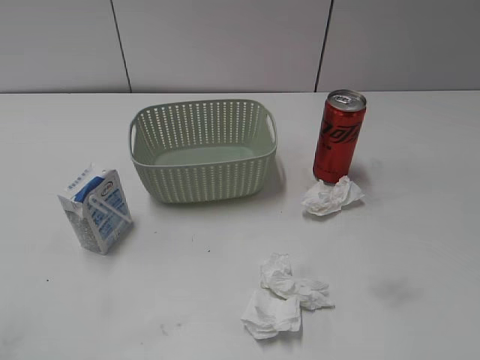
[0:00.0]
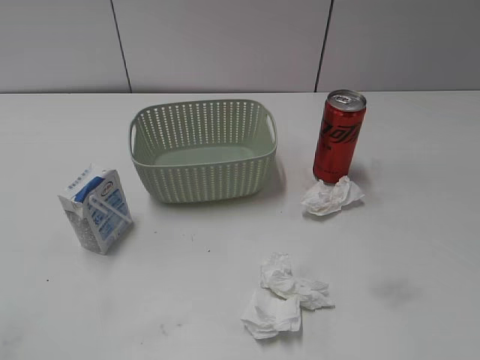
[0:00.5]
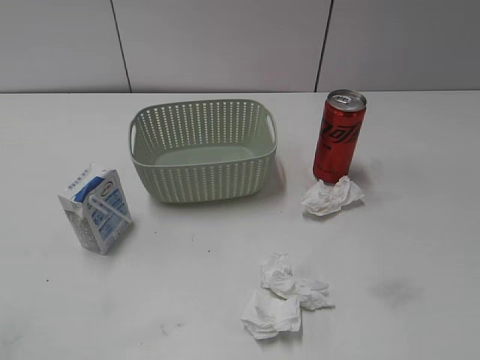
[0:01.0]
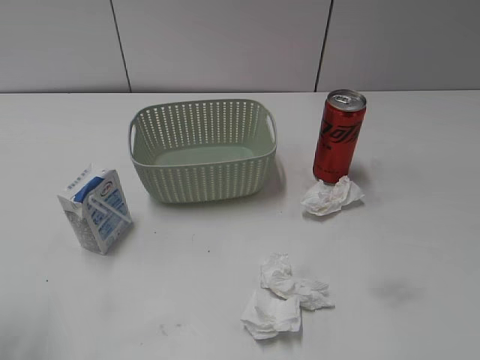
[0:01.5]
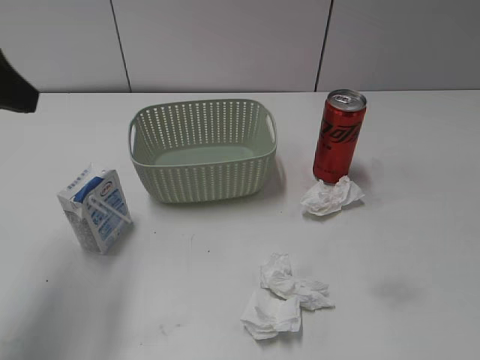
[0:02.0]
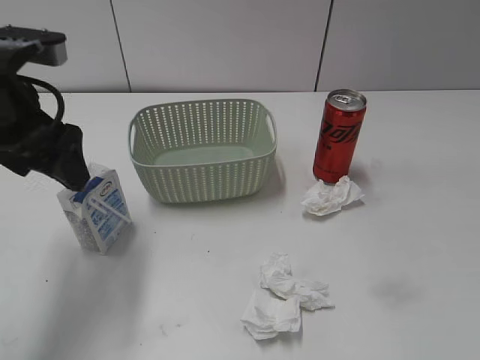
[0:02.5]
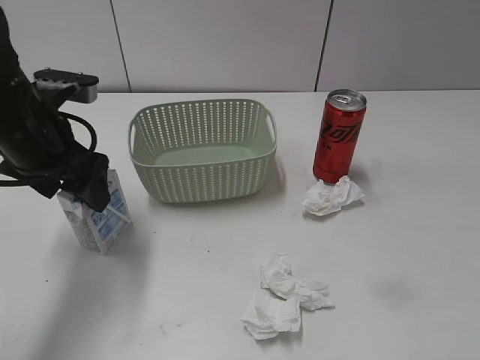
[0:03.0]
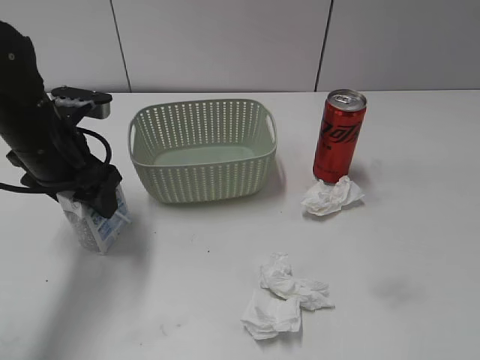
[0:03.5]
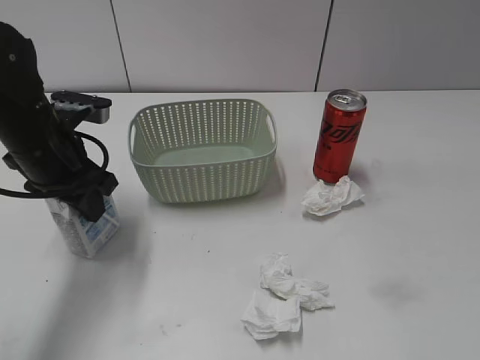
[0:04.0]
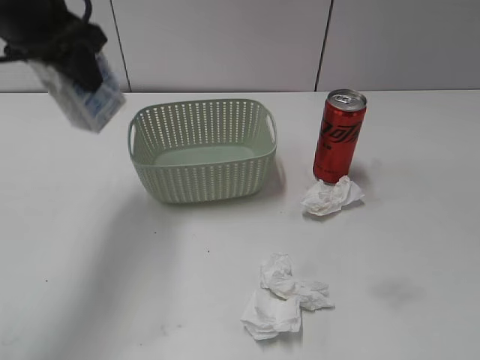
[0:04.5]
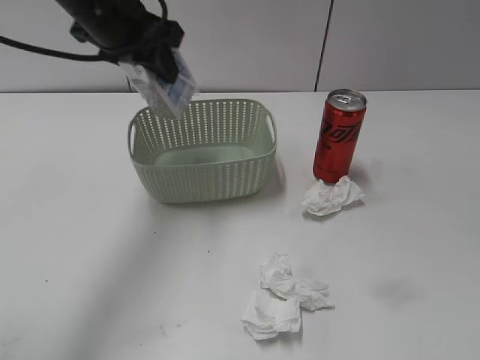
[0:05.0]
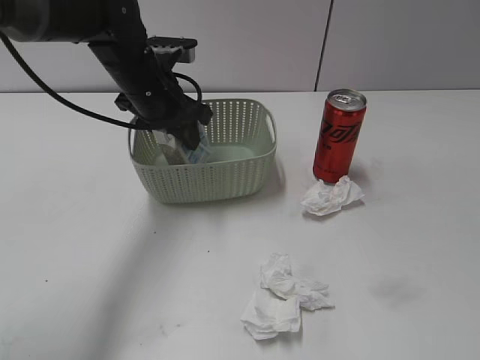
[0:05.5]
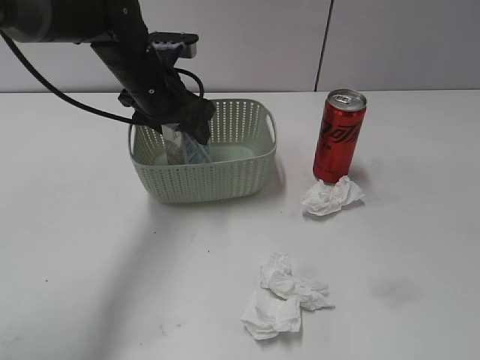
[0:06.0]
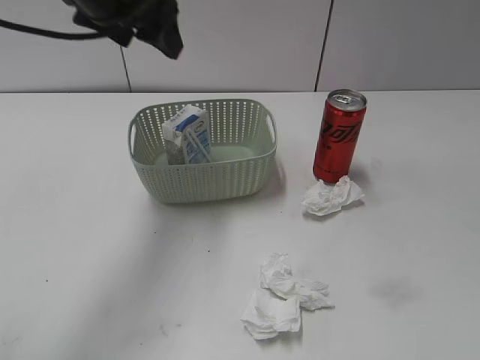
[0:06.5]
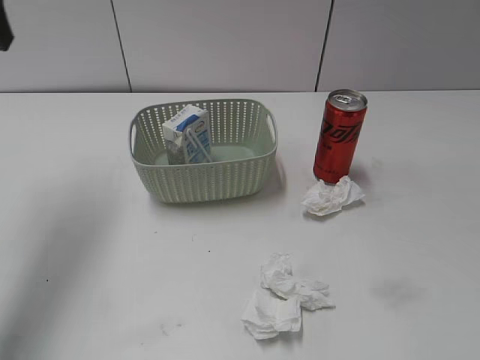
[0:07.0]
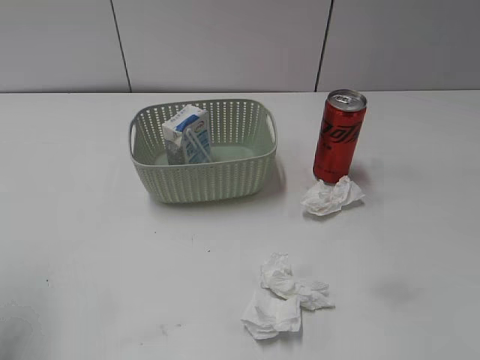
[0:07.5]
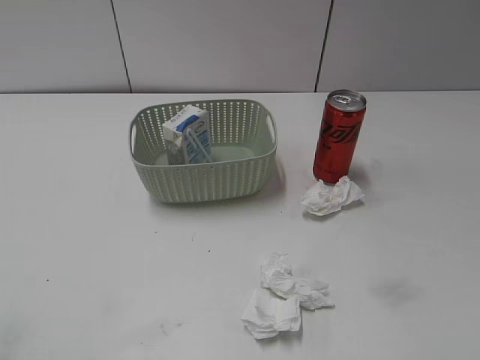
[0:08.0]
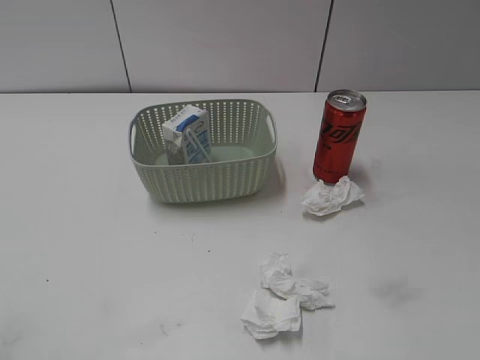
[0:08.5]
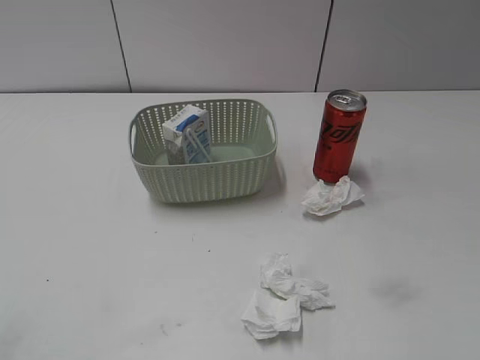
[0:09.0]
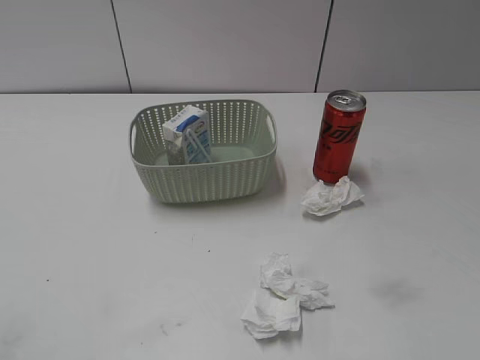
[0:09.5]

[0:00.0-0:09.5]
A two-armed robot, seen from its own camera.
Step, 0:02.0 to 0:03.5: Grasp the milk with left gripper.
Step, 0:04.0 to 0:06.0: Place the milk in the basket with left gripper.
0:02.0 to 0:04.0: The left gripper travels downward and forward by approximately 15 cm, and closes.
0:04.0 to 0:05.5: The left gripper travels to the right and forward by some 15 cm, and moves approximately 15 cm upward and comes back.
0:05.5 to 0:07.5: The left gripper is displaced backward, to the left and upward by roughly 35 cm, and opens its fingers.

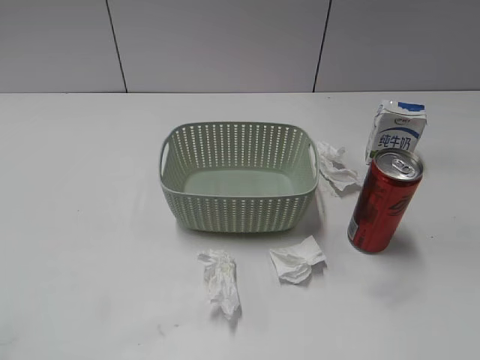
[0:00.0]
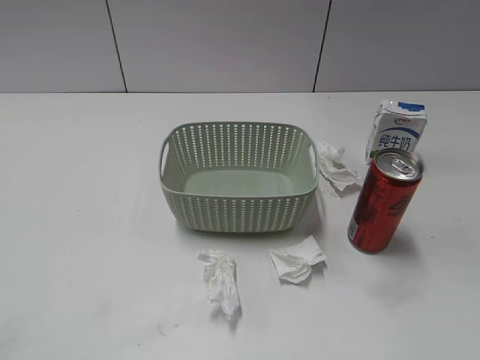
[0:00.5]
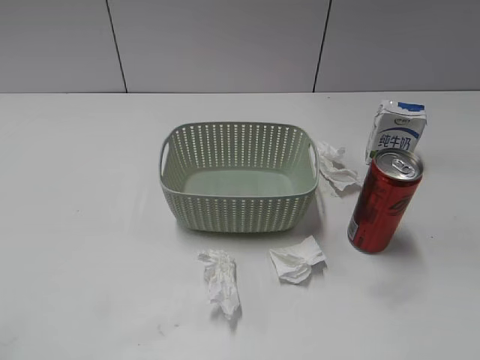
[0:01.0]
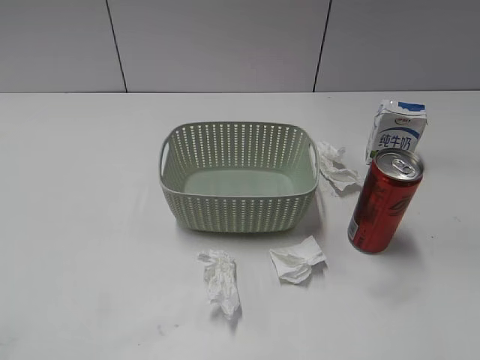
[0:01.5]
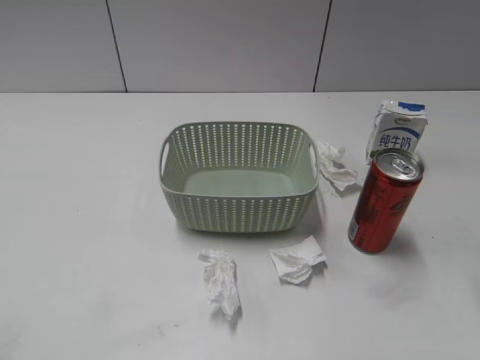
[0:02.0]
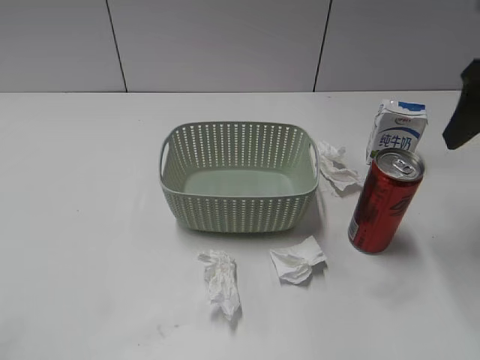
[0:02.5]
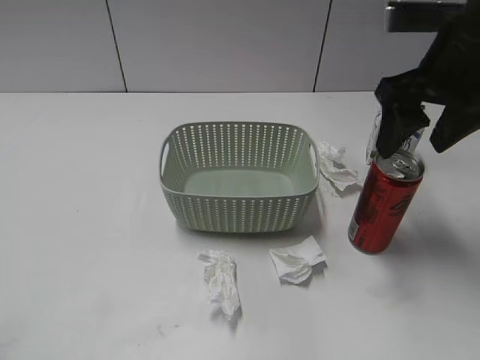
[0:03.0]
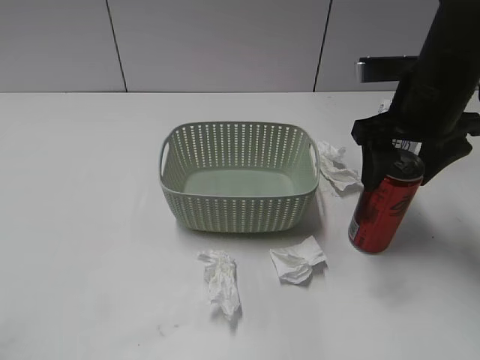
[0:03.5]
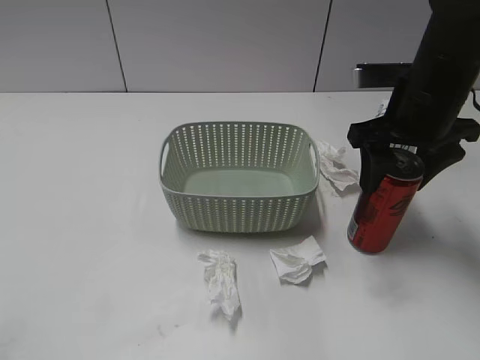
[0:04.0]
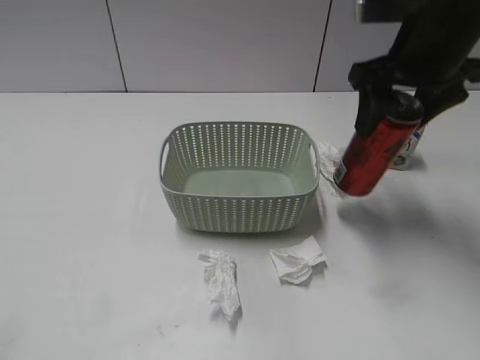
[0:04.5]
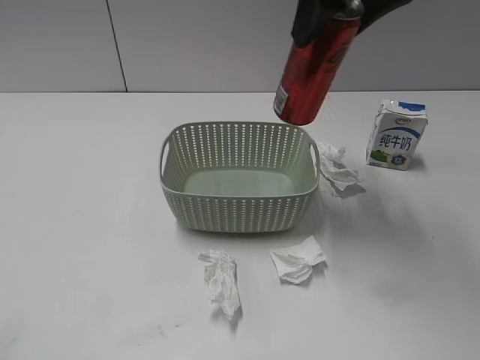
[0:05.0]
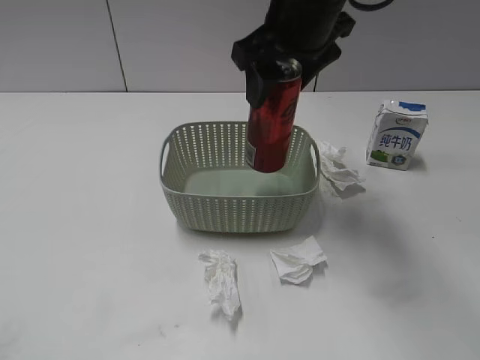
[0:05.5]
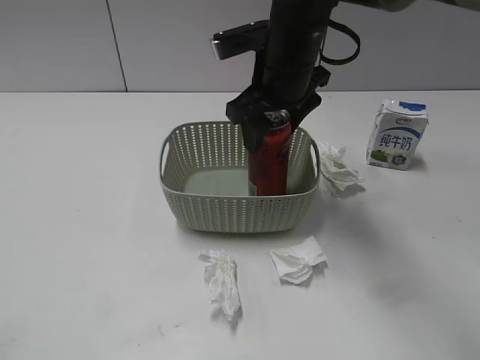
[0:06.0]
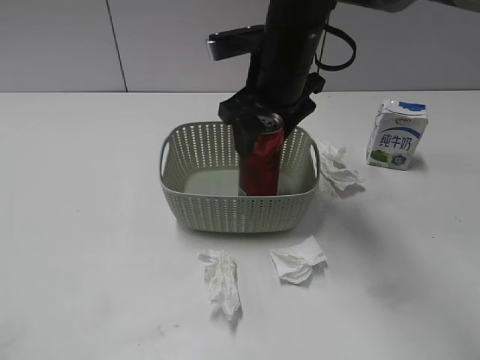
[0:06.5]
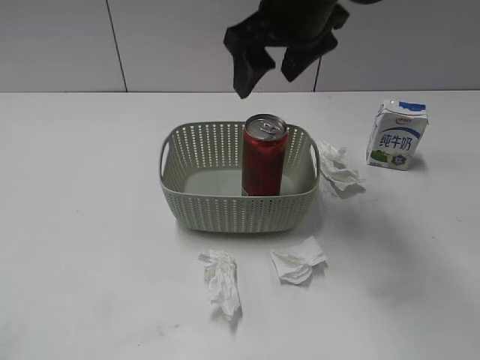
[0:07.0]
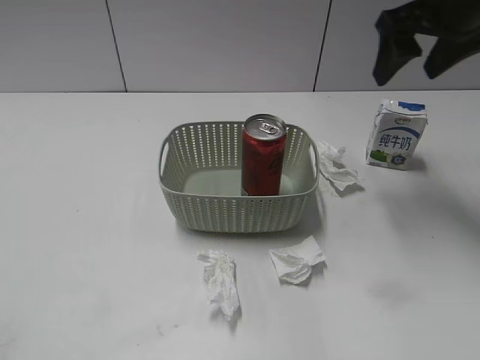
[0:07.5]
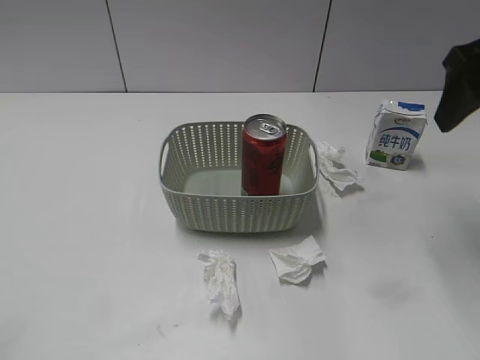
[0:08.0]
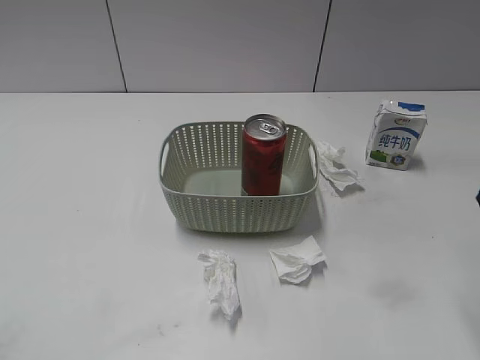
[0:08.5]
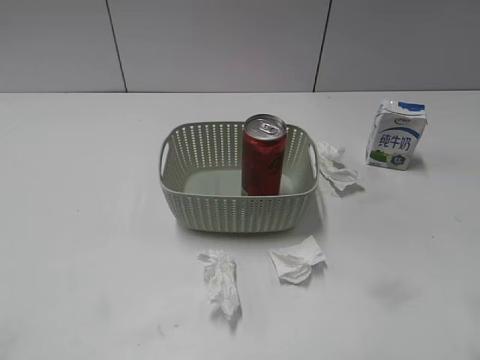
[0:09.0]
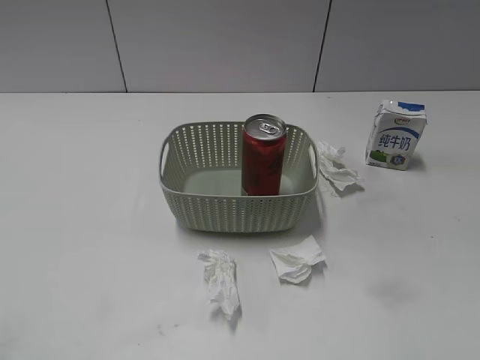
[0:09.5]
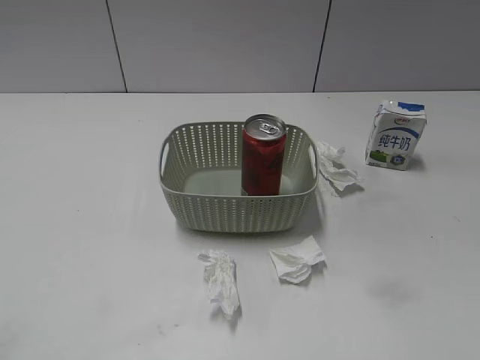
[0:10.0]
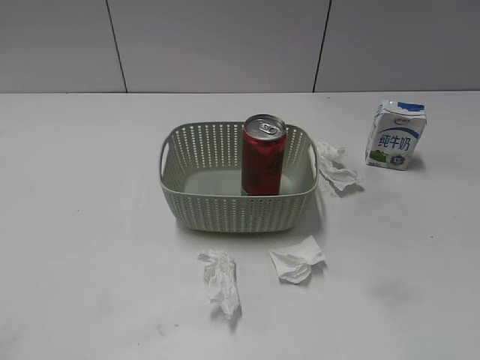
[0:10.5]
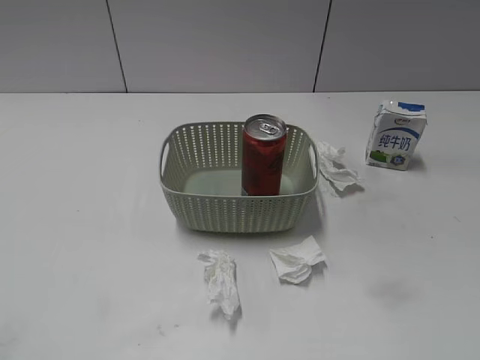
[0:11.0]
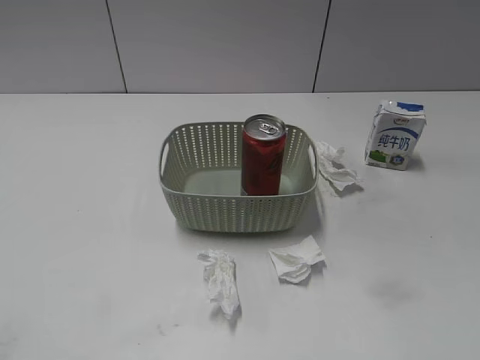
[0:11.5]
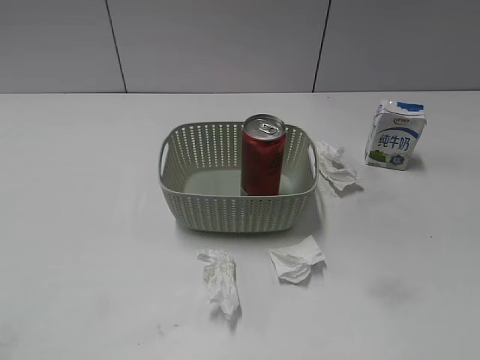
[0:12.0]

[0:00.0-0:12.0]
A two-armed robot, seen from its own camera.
Step, 0:02.5 to 0:04.0: Grasp the cola can with right gripper.
Step, 0:04.5 to 0:06.5: Place the cola can in the basket with right gripper.
0:02.0 to 0:04.0: The right gripper shifts roughly 20 cm forward, to the left and downward.
0:04.0 to 0:06.0: The right gripper is displaced to the left by approximately 15 cm, and travels upward and back again, about 15 cm each way.
0:06.0 to 0:08.0: The right gripper moves to the right and upward, approximately 20 cm.
0:08.0 to 0:10.0: The right gripper travels backward by some 25 cm.

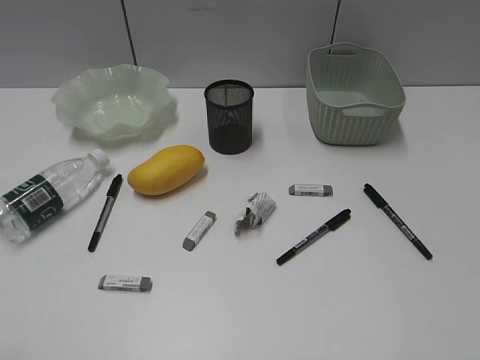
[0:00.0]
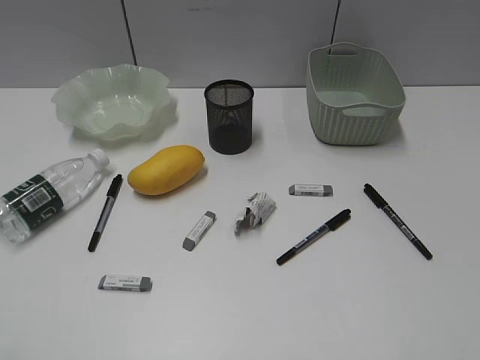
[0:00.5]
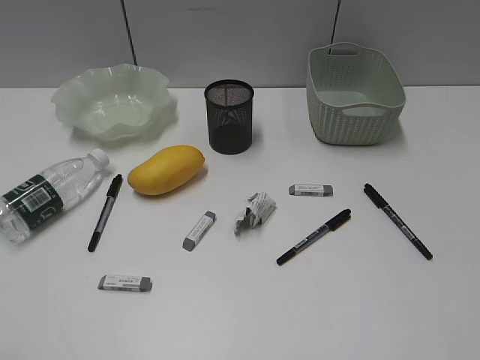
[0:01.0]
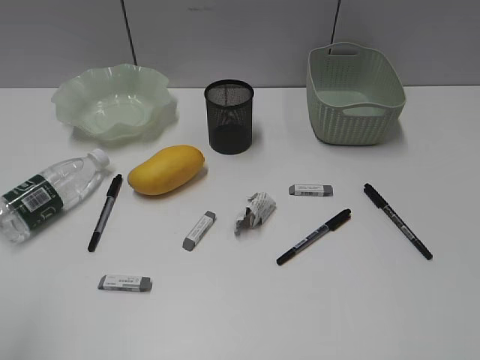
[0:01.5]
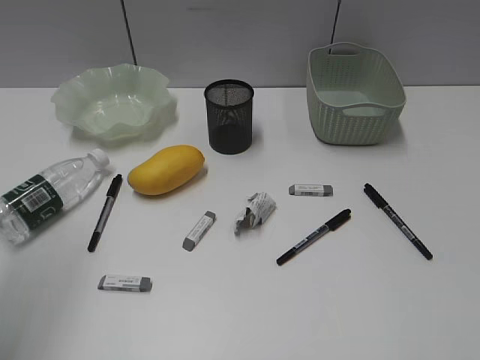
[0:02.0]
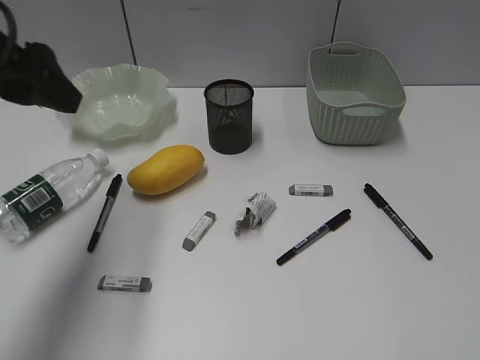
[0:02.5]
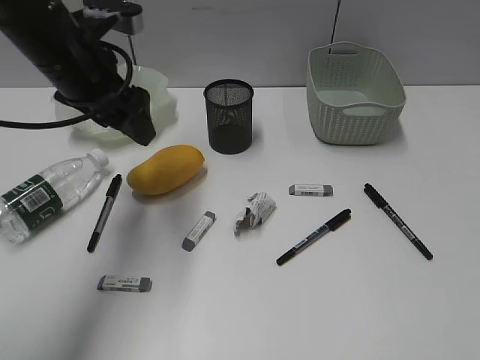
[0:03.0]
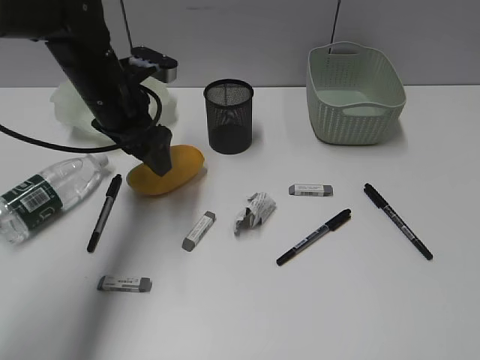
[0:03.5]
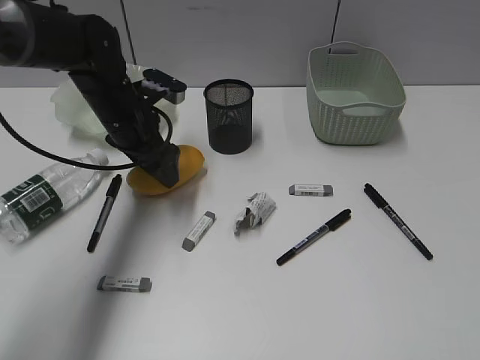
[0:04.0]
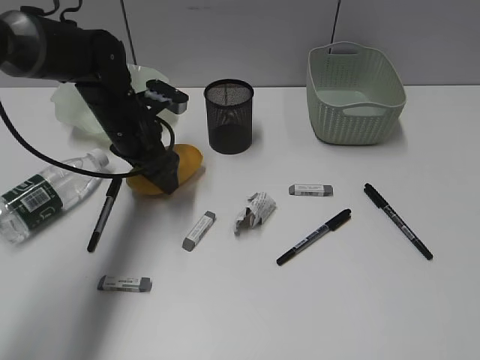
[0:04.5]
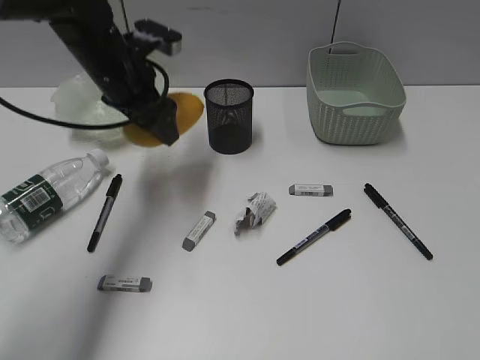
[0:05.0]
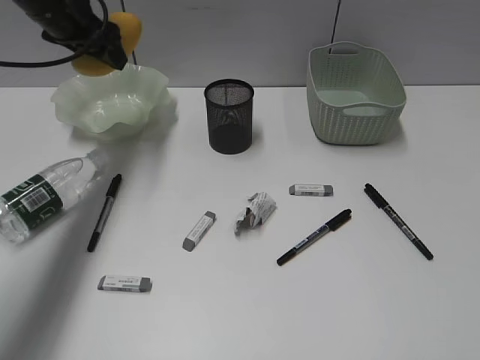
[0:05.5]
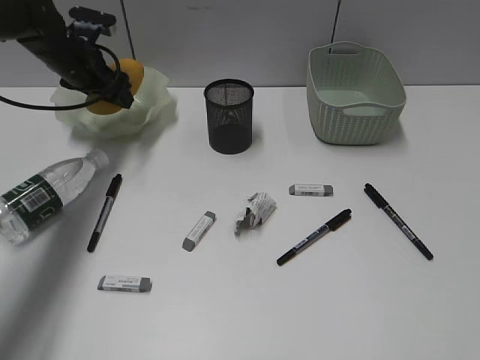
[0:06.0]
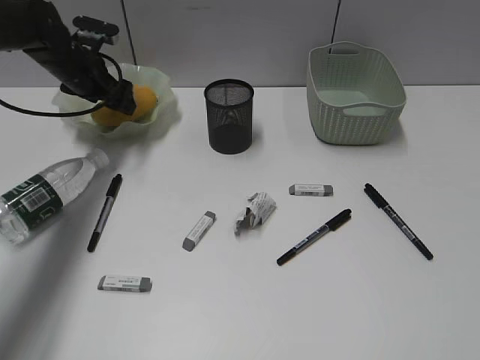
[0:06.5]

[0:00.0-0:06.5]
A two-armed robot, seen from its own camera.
Step, 0:02.5 to 0:04.5: Grasp the mango with left gripper.
0:02.0 to 0:04.5: The left gripper shifts roughly 35 cm forward, downward and to the right.
0:04.5 to 0:06.5: The left gripper heads forward and to the left, covering about 15 cm, and goes upward and returns, about 15 cm each way.
